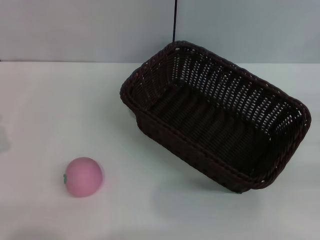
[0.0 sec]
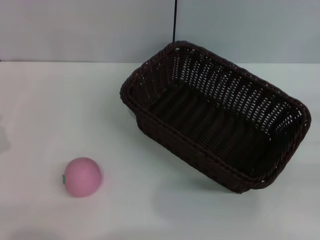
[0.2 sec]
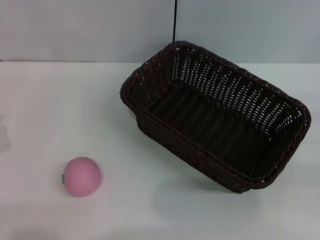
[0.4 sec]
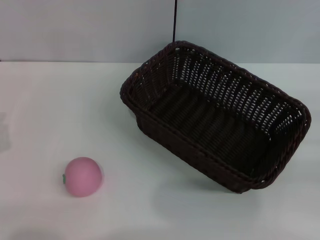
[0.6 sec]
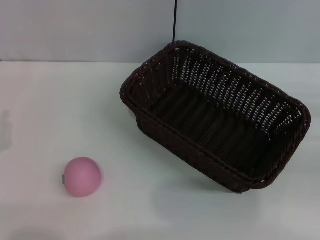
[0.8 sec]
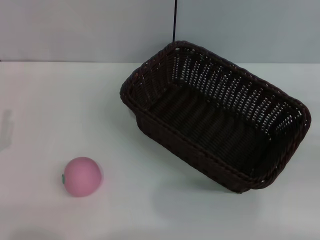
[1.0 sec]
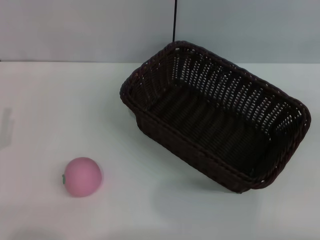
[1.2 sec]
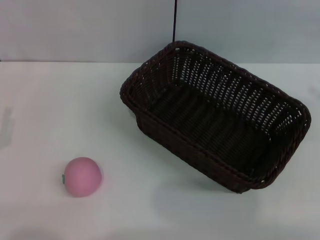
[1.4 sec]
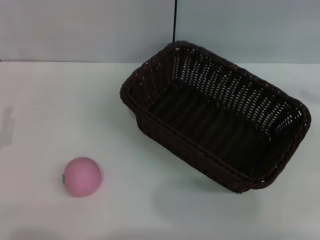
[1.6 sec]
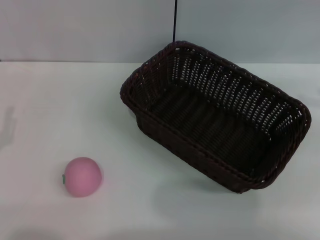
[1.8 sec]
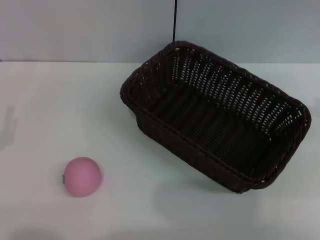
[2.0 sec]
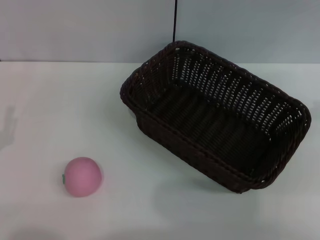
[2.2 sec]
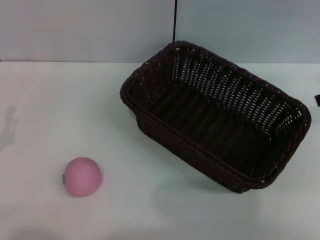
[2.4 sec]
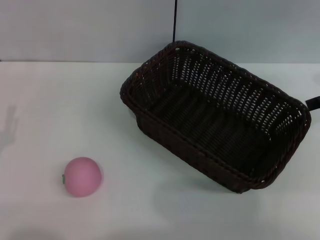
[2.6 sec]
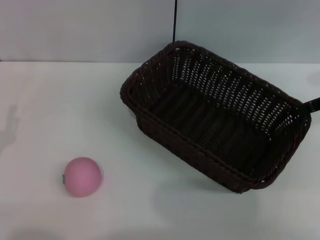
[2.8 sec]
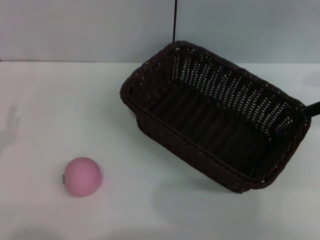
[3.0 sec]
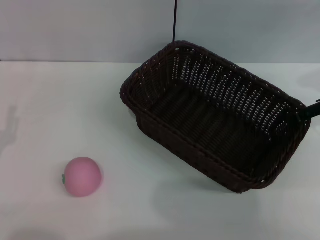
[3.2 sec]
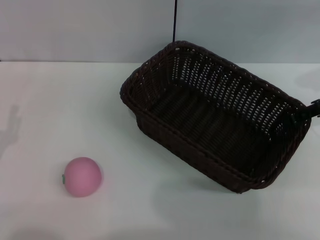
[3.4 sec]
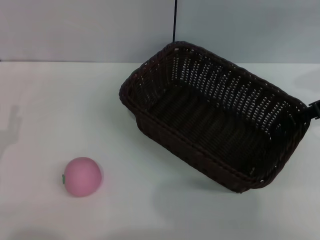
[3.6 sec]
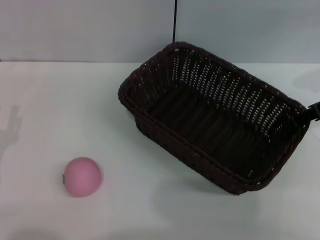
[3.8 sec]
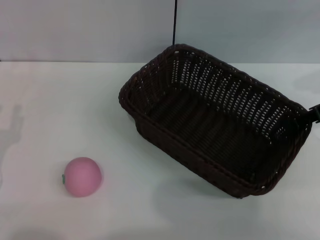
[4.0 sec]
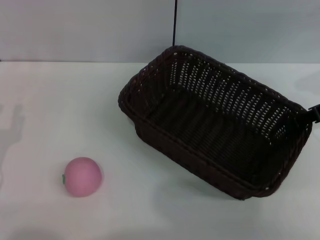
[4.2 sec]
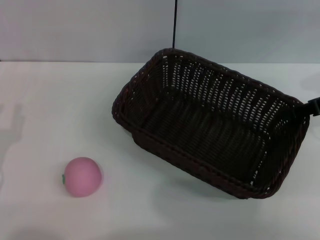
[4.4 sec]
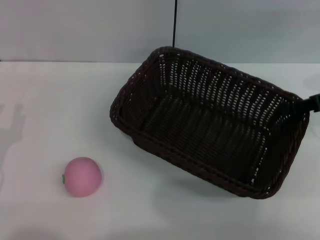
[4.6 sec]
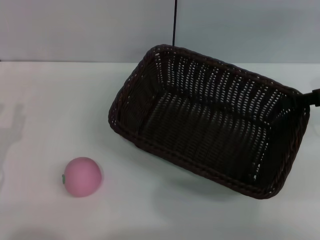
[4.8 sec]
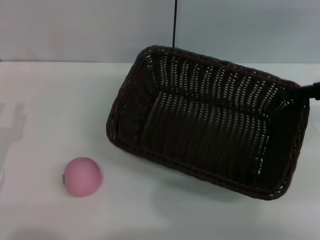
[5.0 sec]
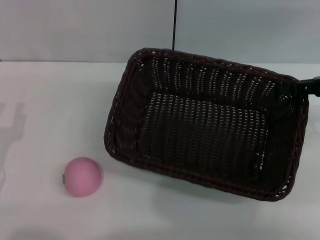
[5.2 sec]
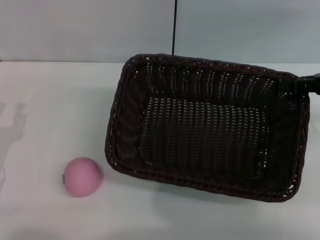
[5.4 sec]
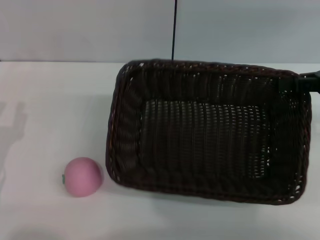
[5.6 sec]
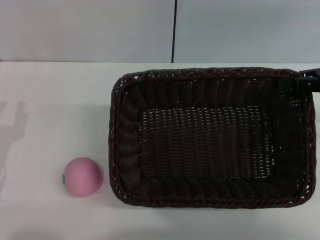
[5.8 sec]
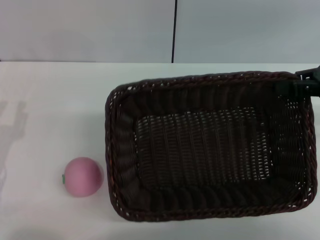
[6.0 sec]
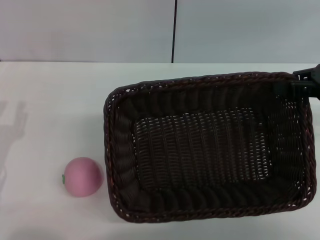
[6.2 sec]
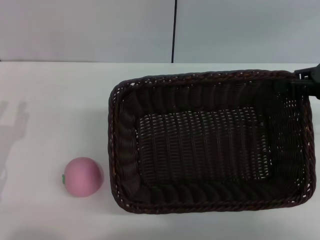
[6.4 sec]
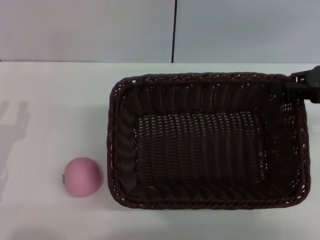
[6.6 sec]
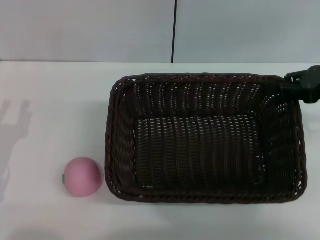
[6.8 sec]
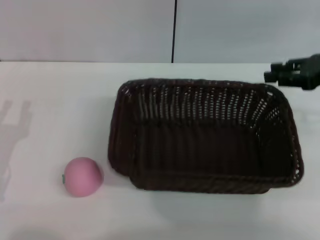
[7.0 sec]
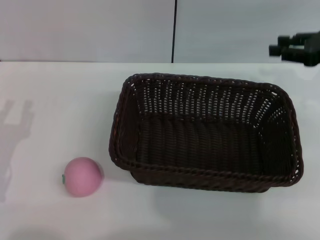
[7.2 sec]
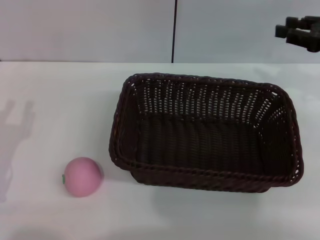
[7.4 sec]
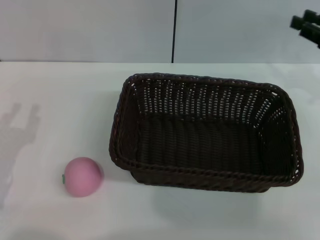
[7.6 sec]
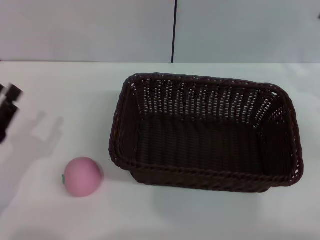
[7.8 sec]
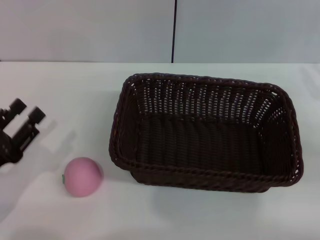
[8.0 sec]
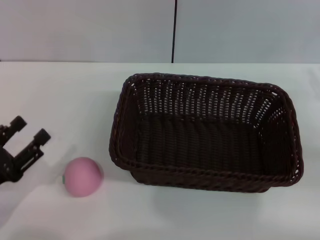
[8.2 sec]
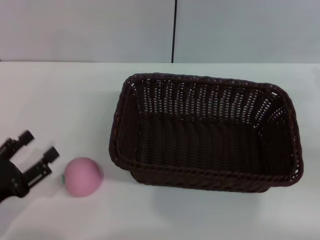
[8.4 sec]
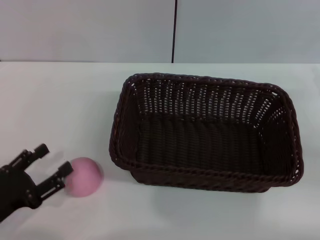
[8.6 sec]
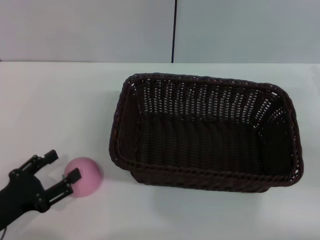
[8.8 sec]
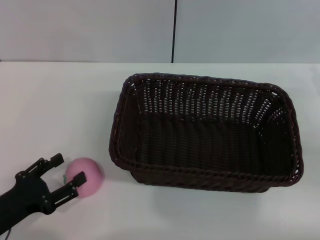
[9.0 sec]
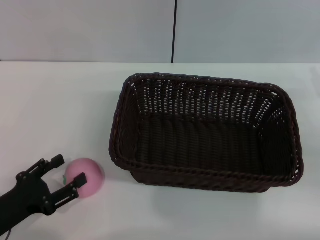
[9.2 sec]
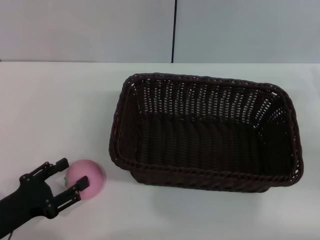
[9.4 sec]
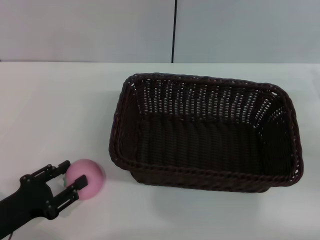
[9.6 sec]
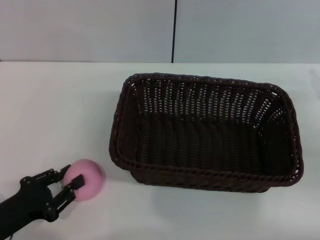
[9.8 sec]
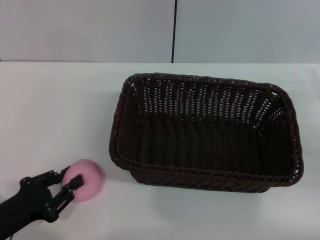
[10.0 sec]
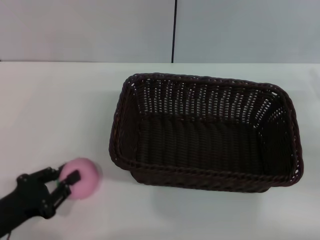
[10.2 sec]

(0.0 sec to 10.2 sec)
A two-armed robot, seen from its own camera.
Step, 0.0 sec - 4.8 sec: Pick up the dark basket with the right gripper.
Step, 5.0 sec - 7.0 sec: Place the dark basket in the center of view with the right gripper.
0.0 sec - 1.4 sec: The right gripper goes roughly 15 cm upward.
3.0 sec - 4.4 sec: The right gripper closes its fingers.
7.2 sec - 8.8 sec: The right gripper heads backward and downward, covering approximately 10 cm, while the left gripper ends up roughly 5 cm from where it was.
8.8 sec - 10.2 sec: The left gripper closes.

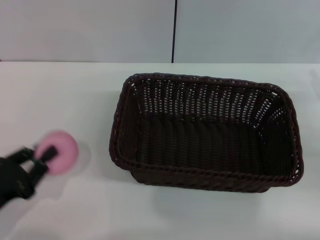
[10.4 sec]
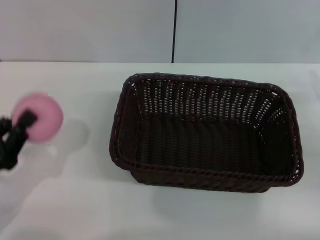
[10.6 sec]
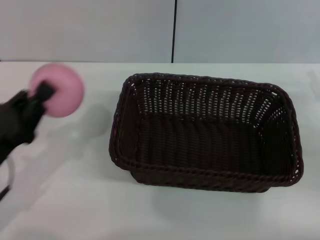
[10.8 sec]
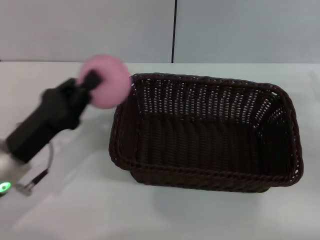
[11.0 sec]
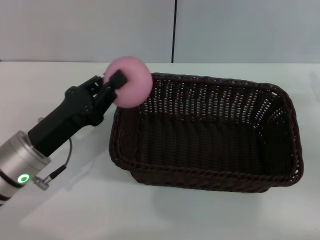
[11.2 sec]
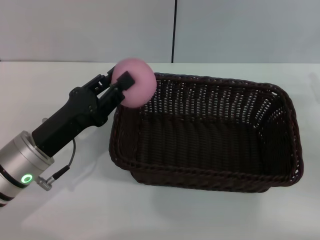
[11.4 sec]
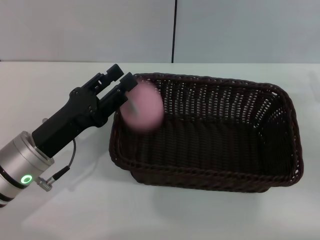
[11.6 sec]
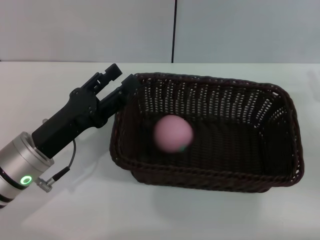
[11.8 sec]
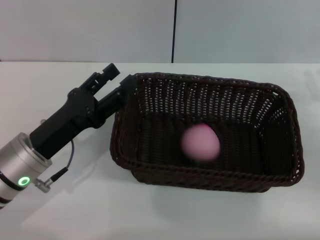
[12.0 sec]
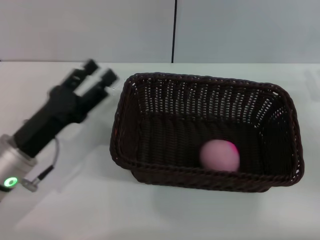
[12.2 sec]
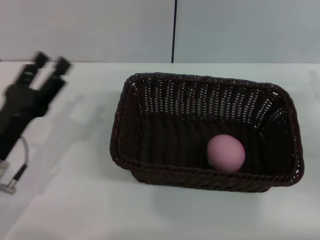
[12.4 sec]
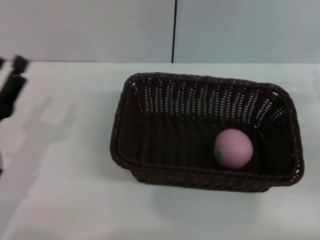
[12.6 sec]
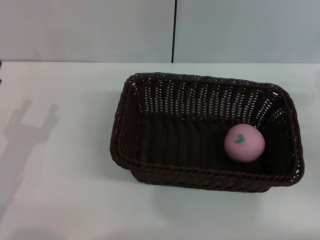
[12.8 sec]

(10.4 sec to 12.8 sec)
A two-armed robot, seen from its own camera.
Step, 10.6 sec - 11.6 sec: Place the peach into the basket with the left gripper.
10.4 sec - 11.6 sec: The left gripper travels to the right and forward by some 15 cm.
11.6 sec - 12.8 sec: The left gripper moves to the left, about 5 cm, and opens its fingers.
